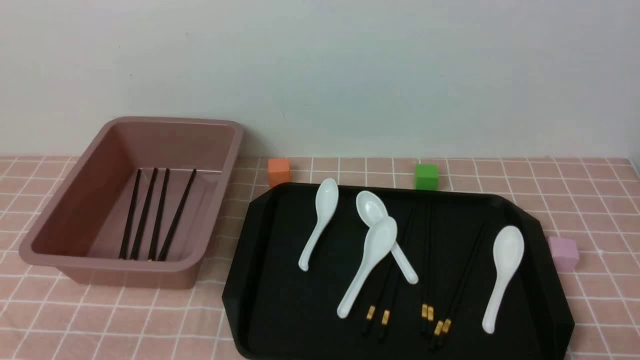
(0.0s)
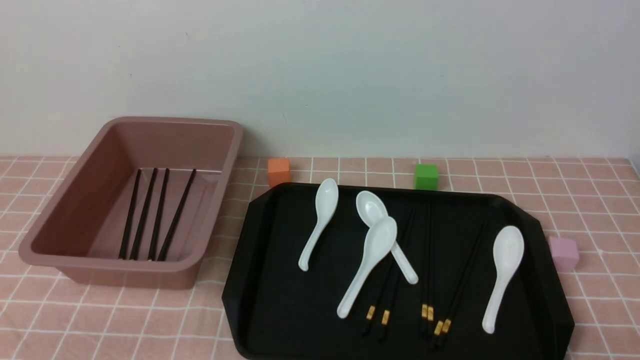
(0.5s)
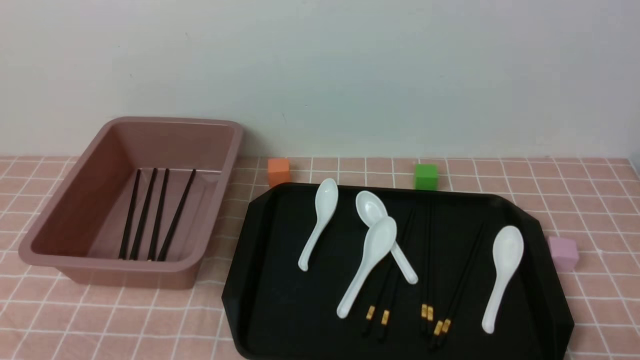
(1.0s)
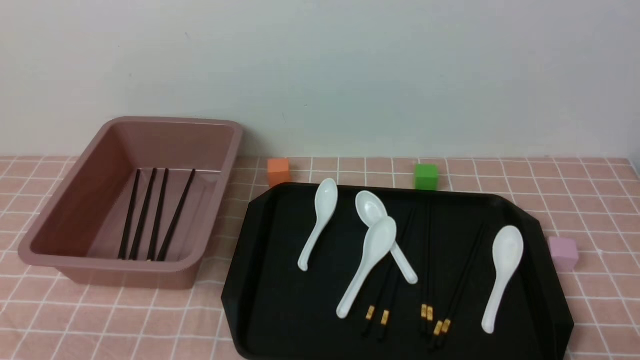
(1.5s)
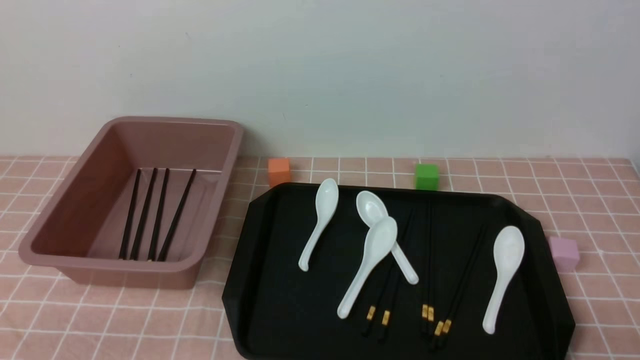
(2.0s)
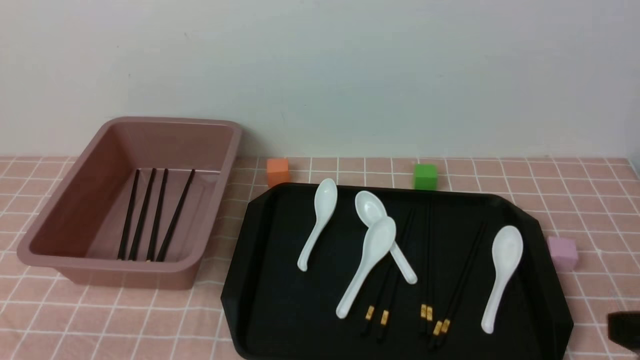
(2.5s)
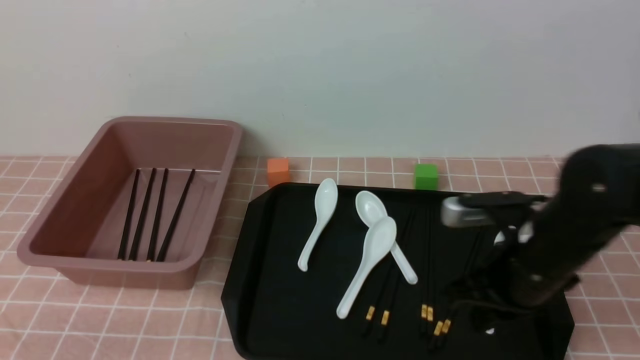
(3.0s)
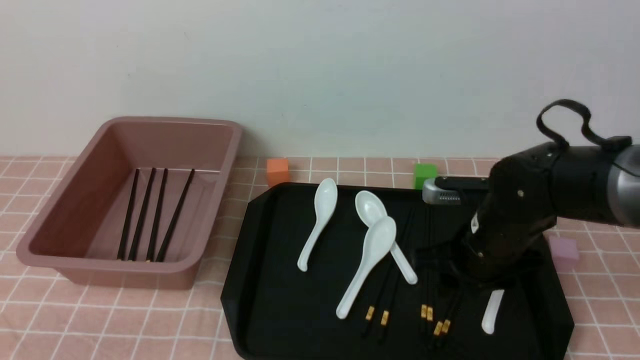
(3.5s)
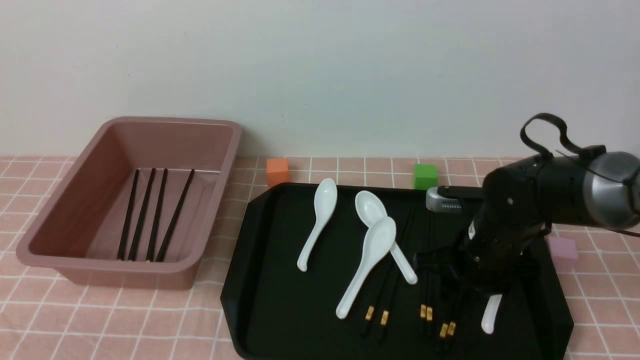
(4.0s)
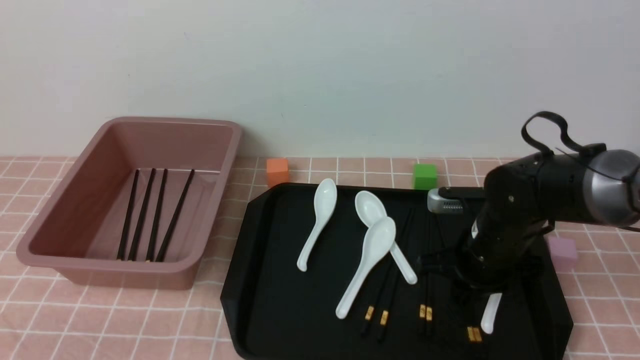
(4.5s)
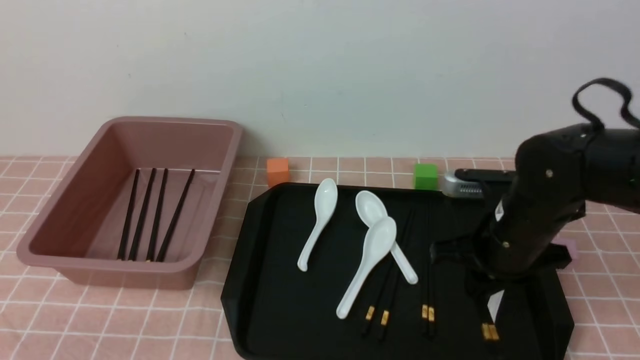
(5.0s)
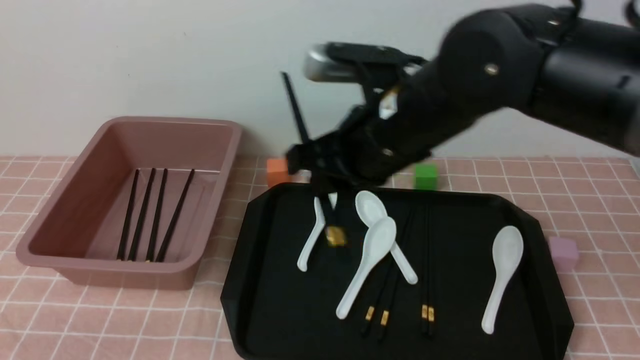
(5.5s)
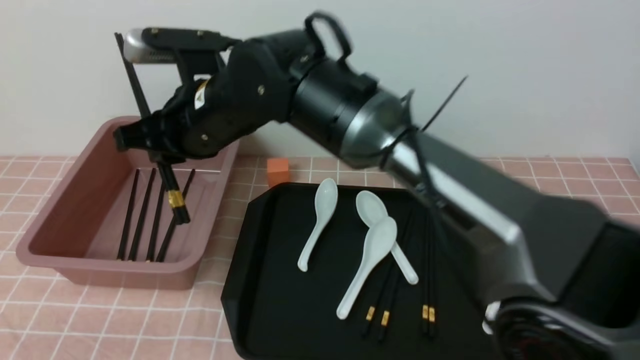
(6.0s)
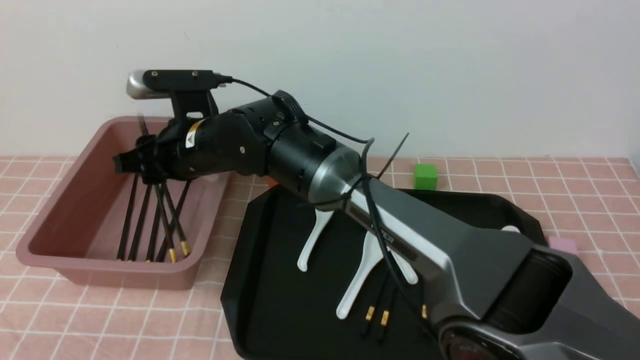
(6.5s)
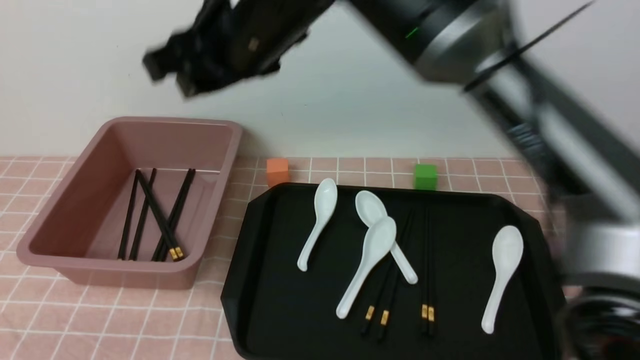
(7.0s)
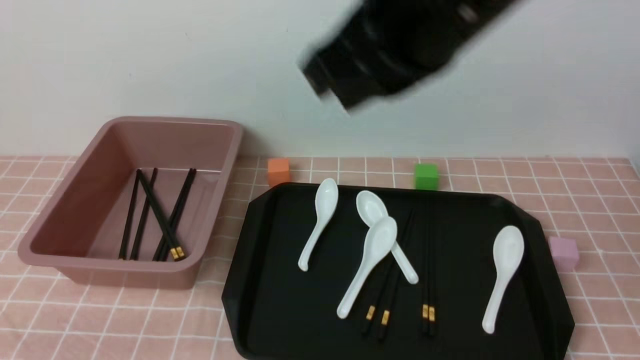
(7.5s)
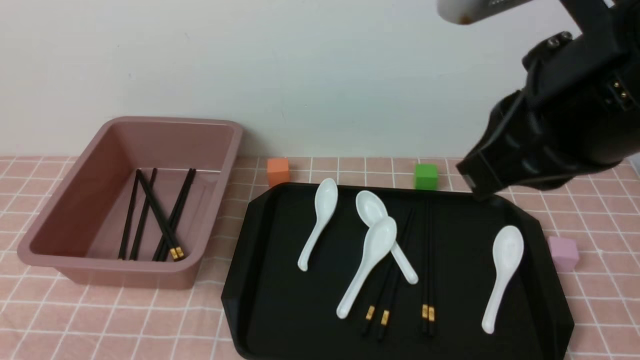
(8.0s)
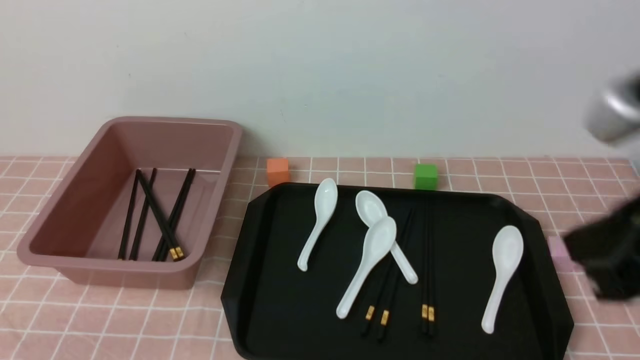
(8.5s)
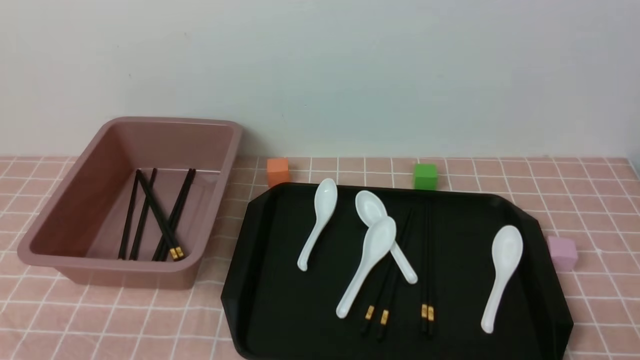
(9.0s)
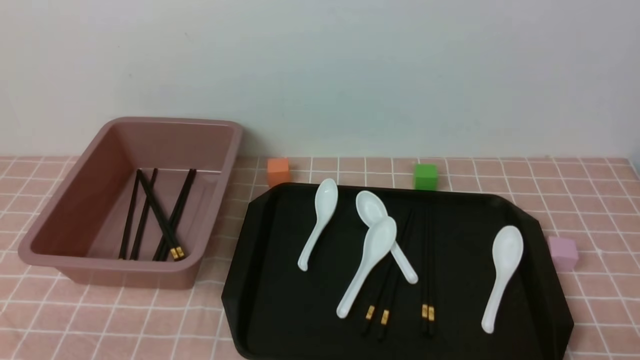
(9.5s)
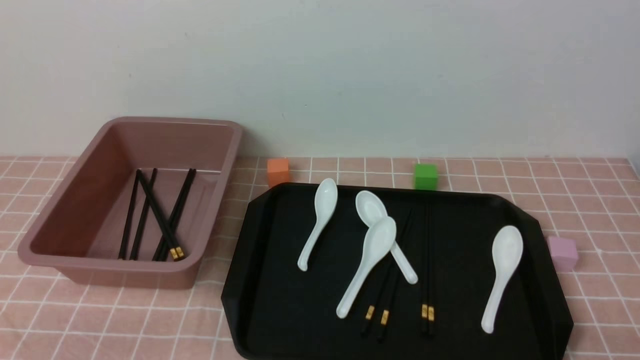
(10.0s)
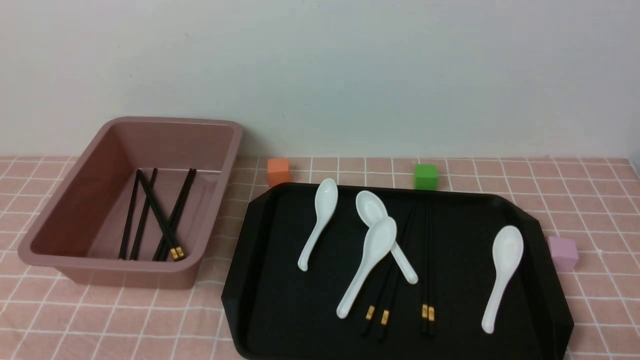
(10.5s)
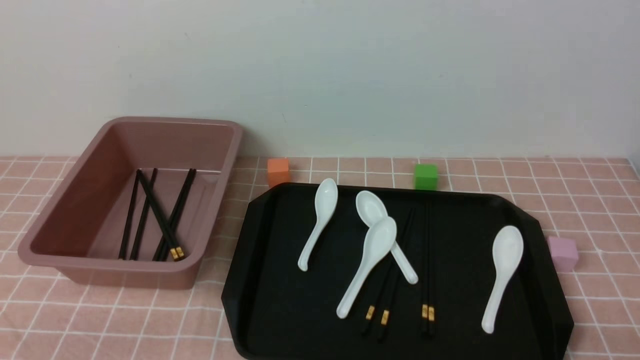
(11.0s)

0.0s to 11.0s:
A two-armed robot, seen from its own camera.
Step, 0.0s to 5.0s: use the right arm to grab a pair of chopsticks.
Step, 5.5s to 7.0s: use the right arm to put the chopsticks into the lunch box.
2.0s to 3.5s: The right gripper is displaced forward and to the left by approximately 30 cm, and closes, then opens again.
3.5s to 5.5s: The right gripper is displaced upward and to the left by about 20 cm, and closes.
5.5s to 7.5s: The right gripper goes approximately 15 cm upward and backward, and opens, then closes again.
7.5s to 9.0s: The right gripper is displaced downward, to the right and backward by about 40 cm.
